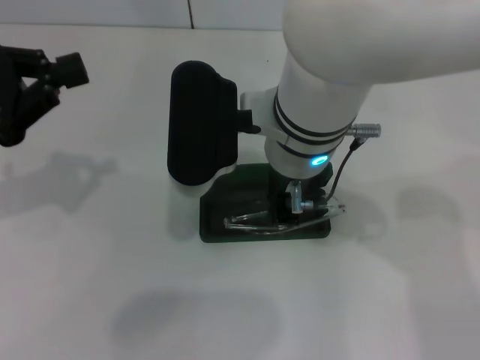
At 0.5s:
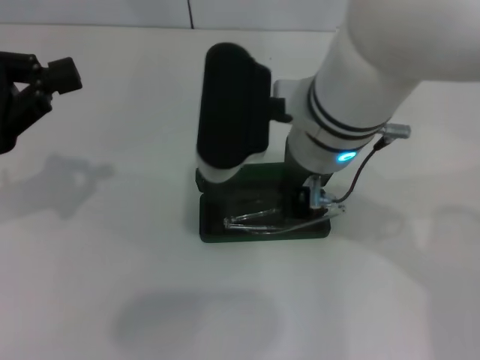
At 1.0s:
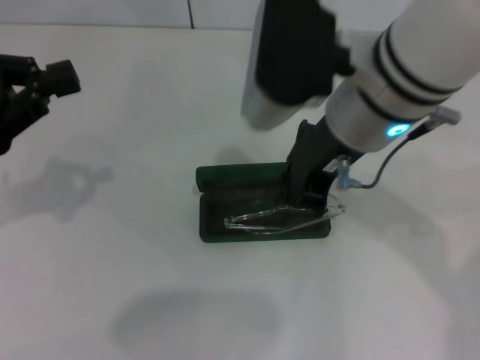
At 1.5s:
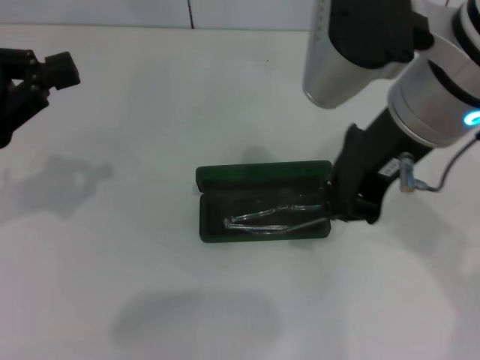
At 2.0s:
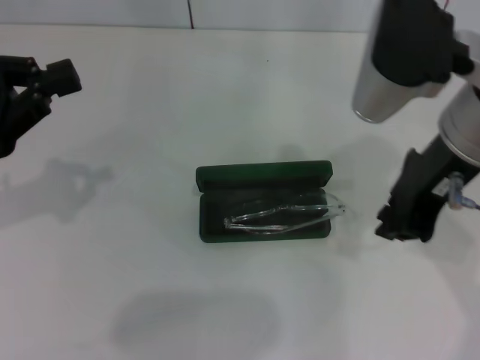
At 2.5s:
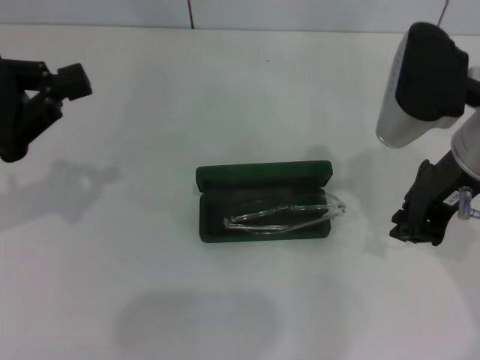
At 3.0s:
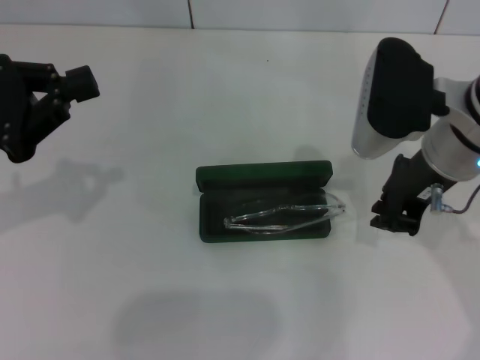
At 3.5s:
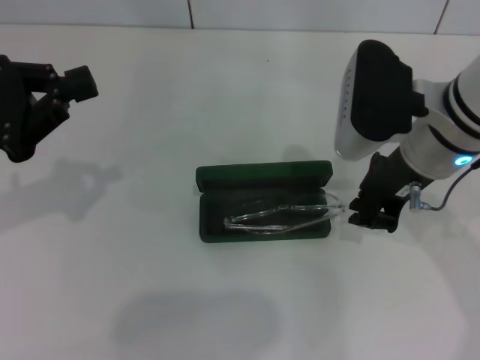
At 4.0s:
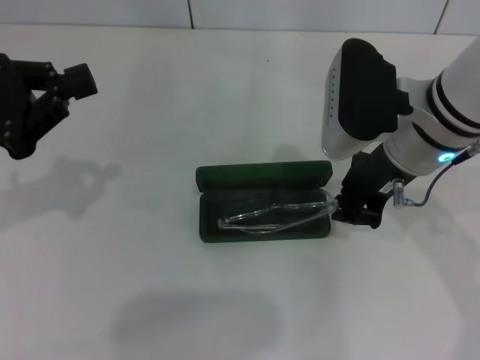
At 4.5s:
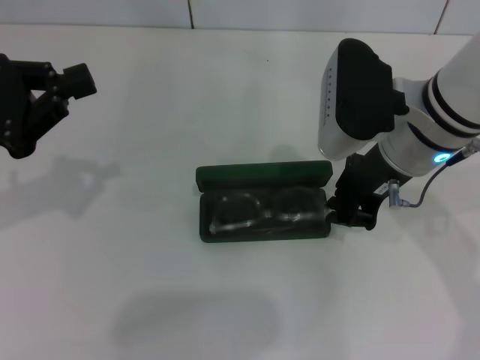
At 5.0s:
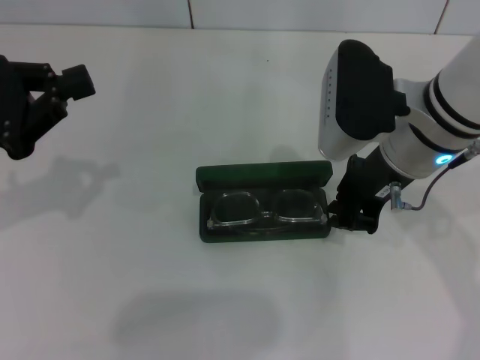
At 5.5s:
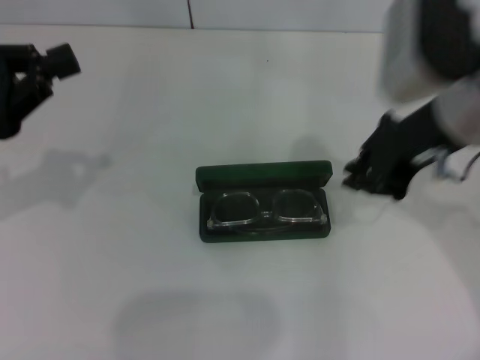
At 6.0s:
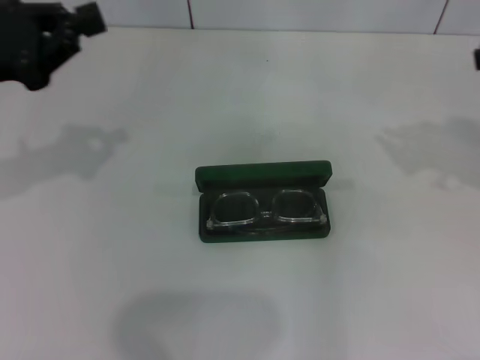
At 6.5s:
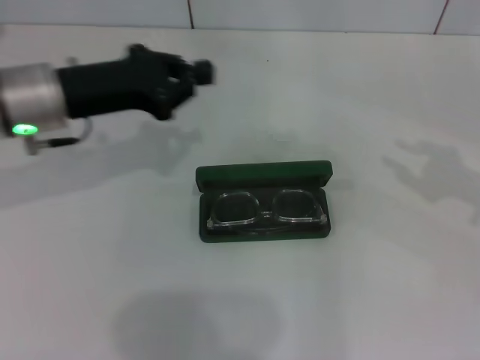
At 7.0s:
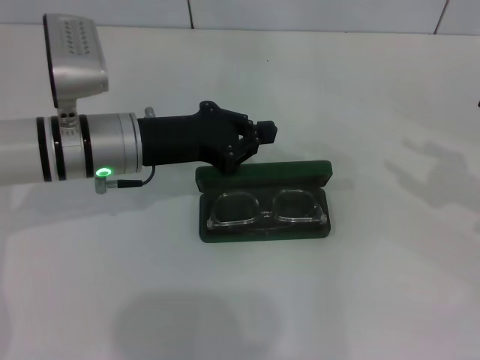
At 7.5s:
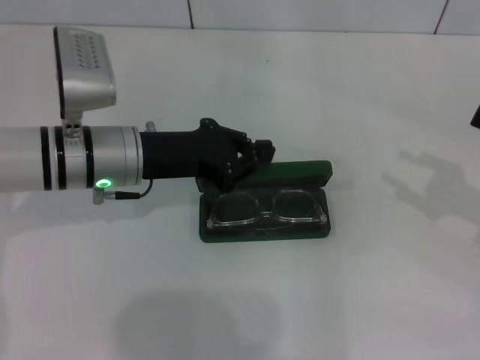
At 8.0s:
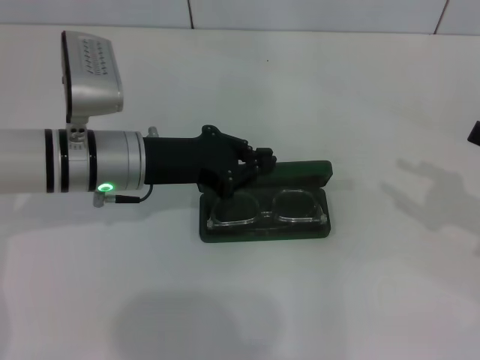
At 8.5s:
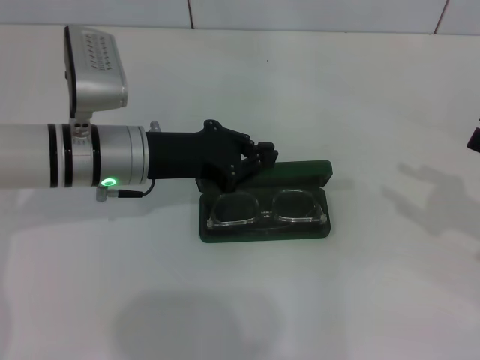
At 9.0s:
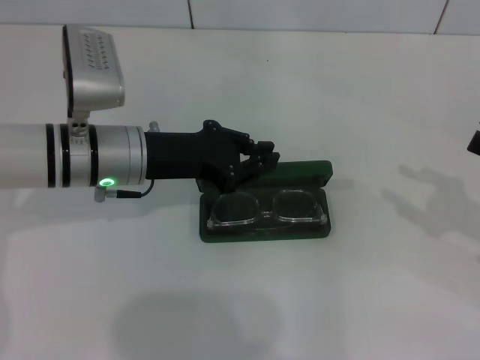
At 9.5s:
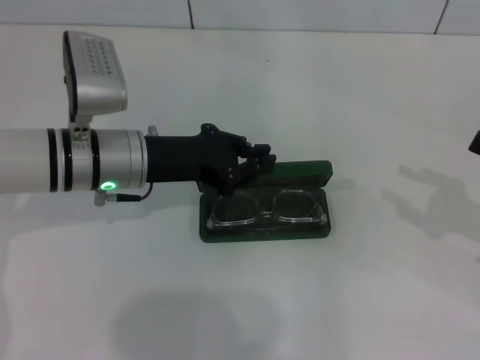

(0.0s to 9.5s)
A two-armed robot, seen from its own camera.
Step, 0.0s - 4.5s: Put the glasses into the case with your right hand.
0.0s - 2.0s: The right gripper moves to the right, approximately 15 cm.
2.0s - 4.0s: The right gripper travels downward by approximately 5 cm.
4.0s - 5.5s: The right gripper goes about 5 cm upward.
5.5s - 7.5s: The grippers both shift to the right and downward by approximately 20 cm. The right gripper opens up.
7.5s - 9.5s: The grippers stay close to where they were, moving slightly.

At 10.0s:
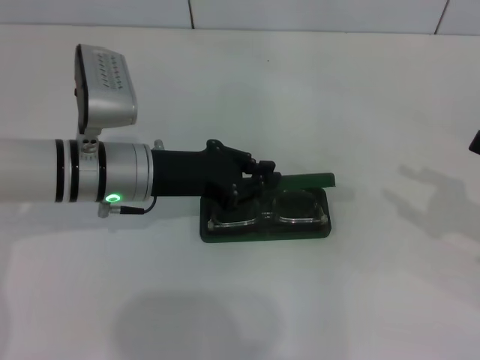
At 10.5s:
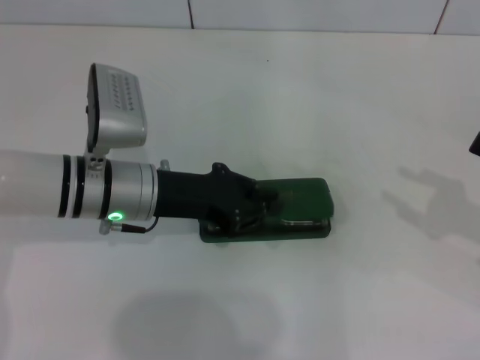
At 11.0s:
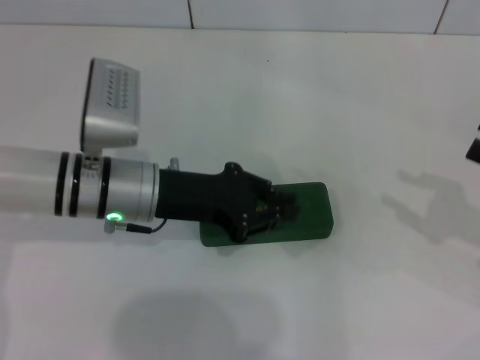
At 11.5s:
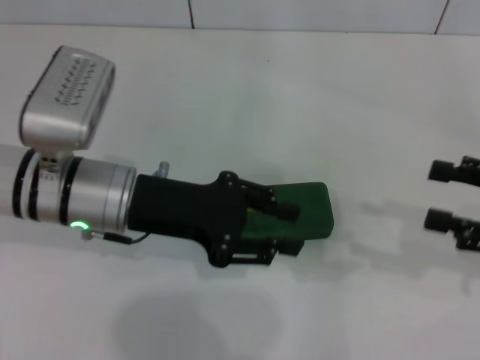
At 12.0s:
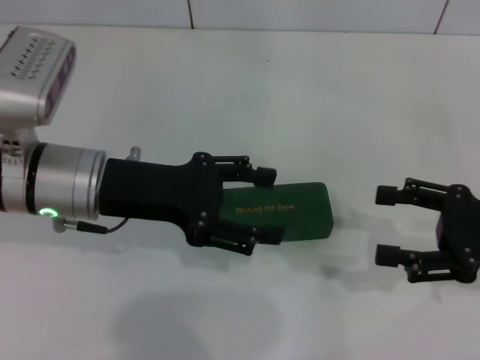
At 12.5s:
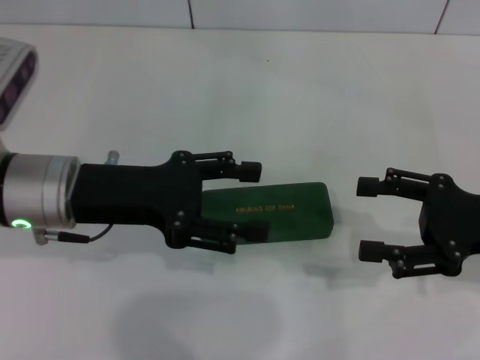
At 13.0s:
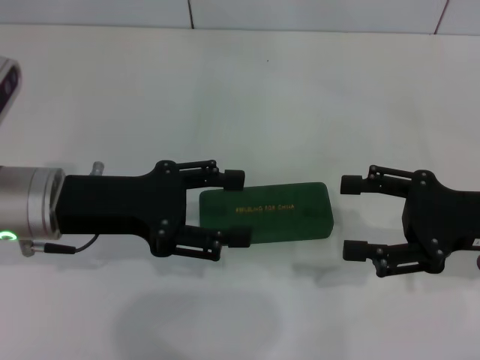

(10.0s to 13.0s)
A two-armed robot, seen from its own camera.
11.5s - 13.0s: The two grippers go approximately 5 cm to the left. The left gripper opens up.

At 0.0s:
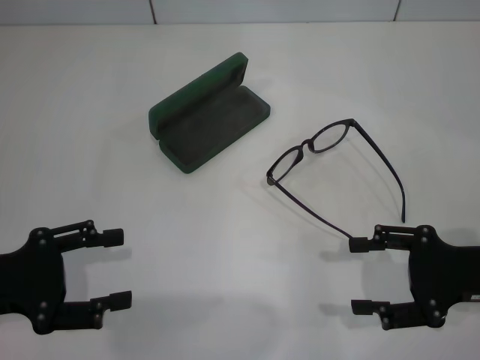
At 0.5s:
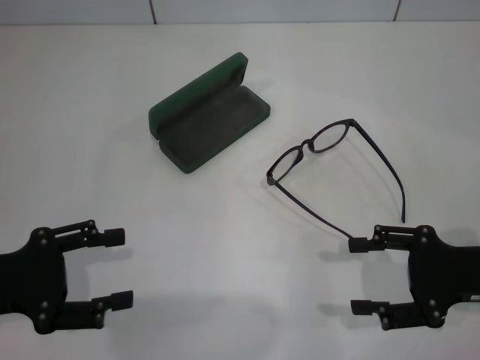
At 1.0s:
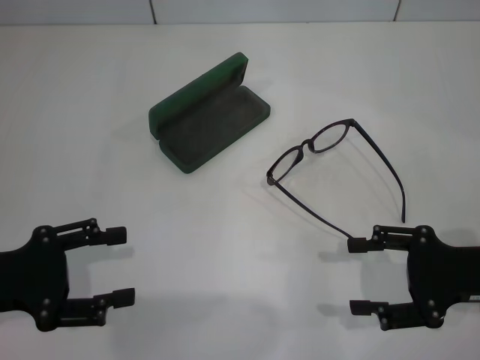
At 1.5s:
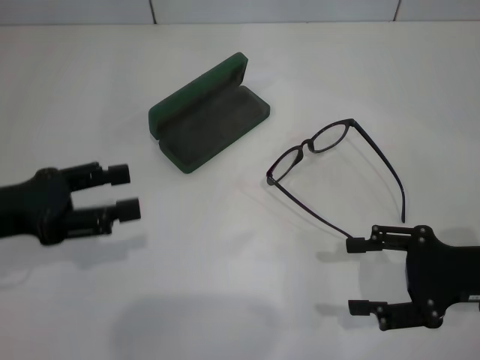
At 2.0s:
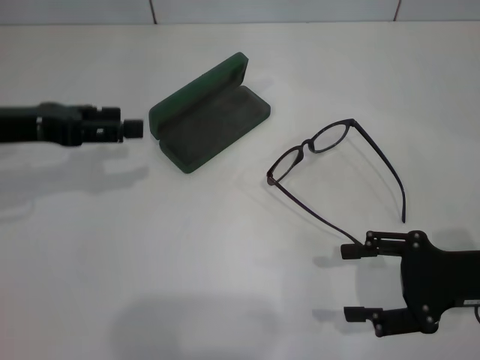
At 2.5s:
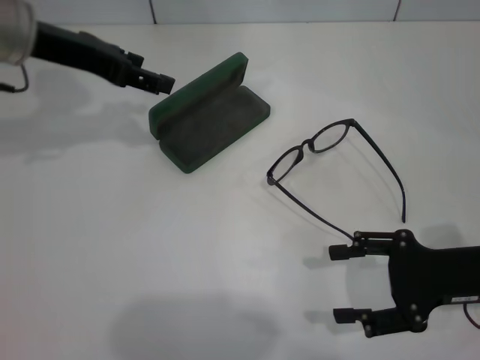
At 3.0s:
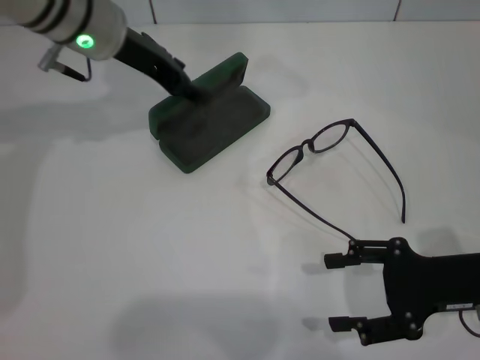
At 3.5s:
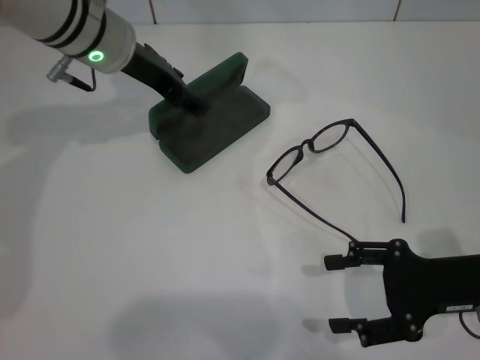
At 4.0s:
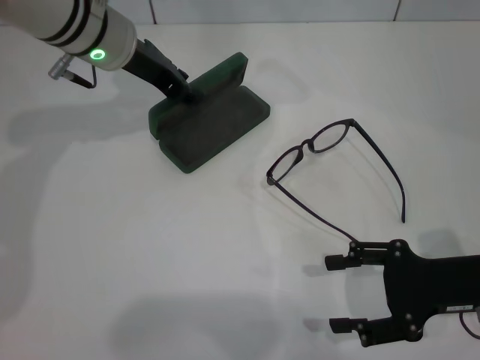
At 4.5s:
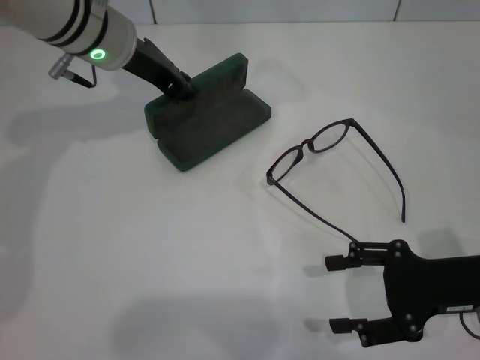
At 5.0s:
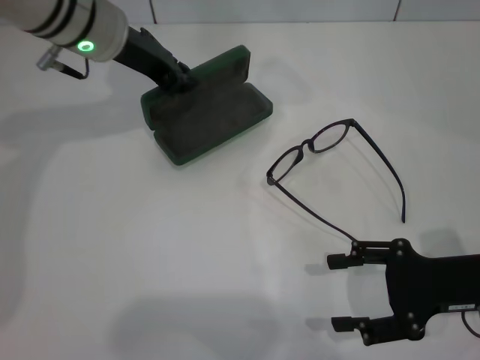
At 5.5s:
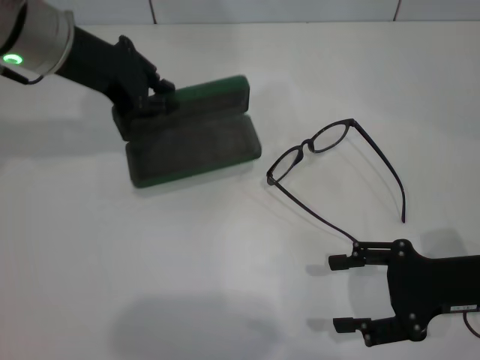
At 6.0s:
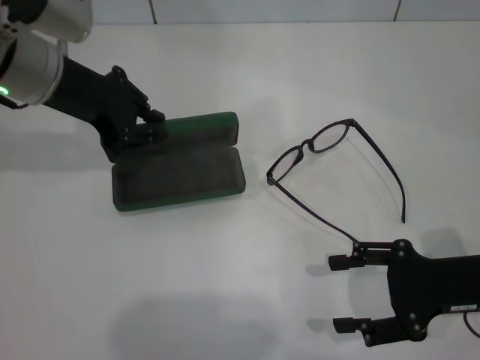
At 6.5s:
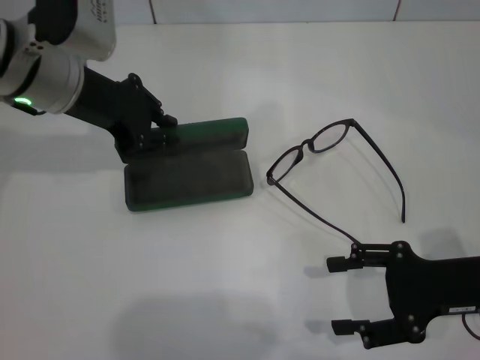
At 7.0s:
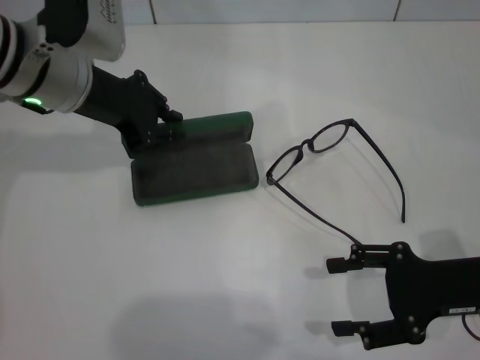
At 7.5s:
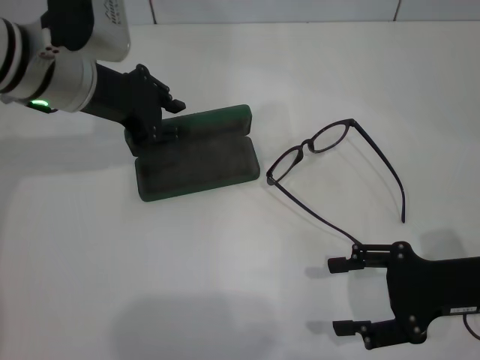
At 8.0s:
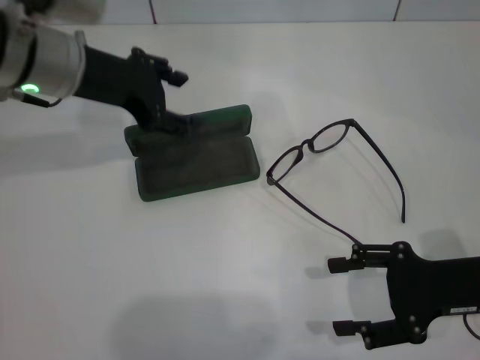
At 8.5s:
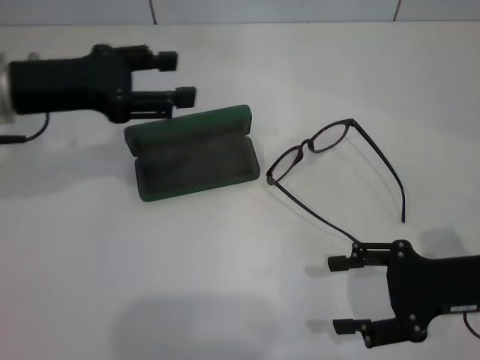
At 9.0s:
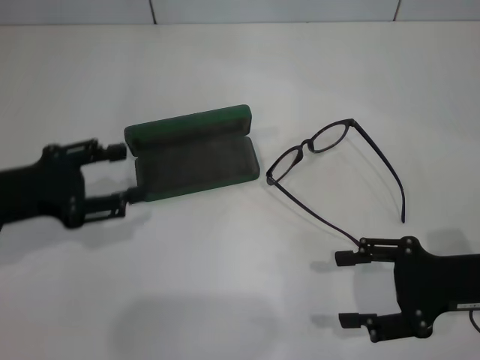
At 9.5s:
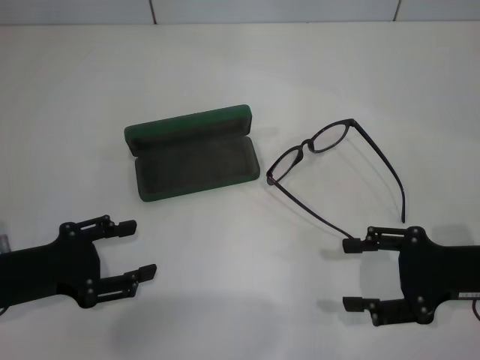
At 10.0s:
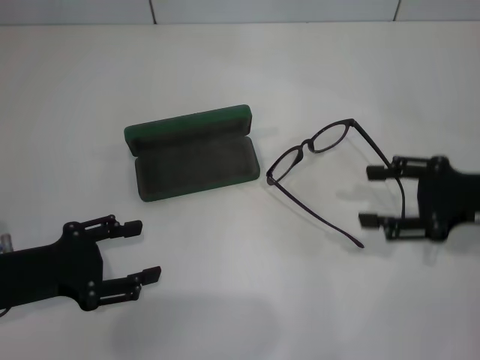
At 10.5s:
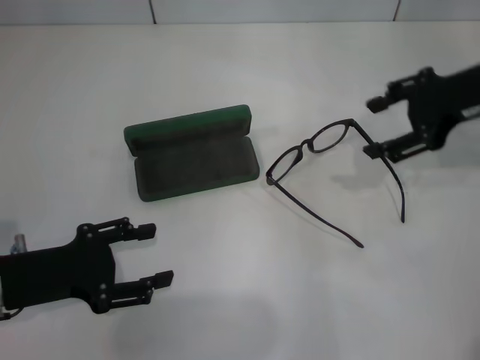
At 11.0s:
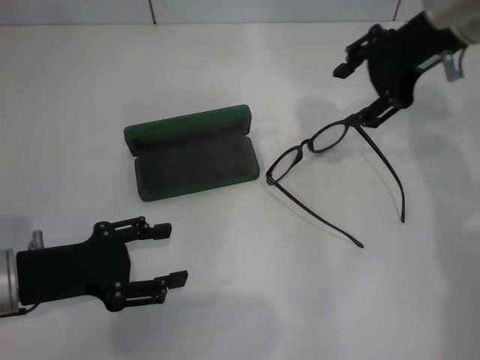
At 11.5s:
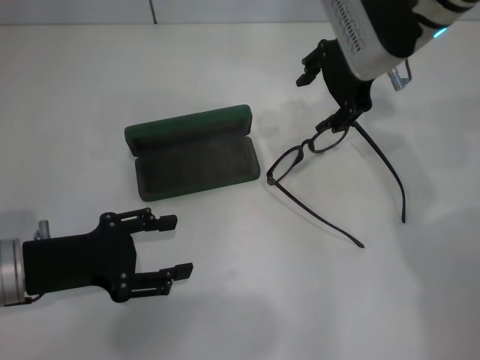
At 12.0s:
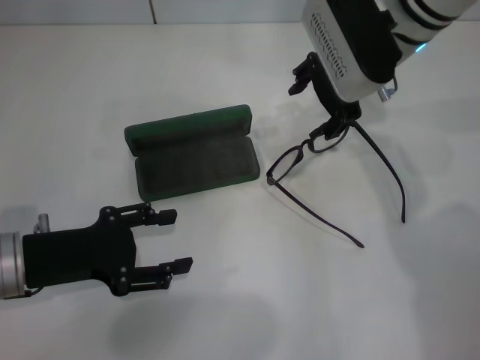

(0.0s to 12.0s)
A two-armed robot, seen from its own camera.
Step, 0.0s - 4.5s: Grab the glasses case with your left hand.
Step, 5.0s - 7.5s: Place the glasses case in the center of the table with your left hand.
0.0s - 2.0s: The left gripper heads forward and upward, covering some 15 cm.
2.0s - 4.0s: The left gripper shifts about 20 cm to the right and forward.
4.0s - 6.0s: The left gripper travels backward and to the left by roughly 10 cm, and closes its fingers.
6.0s - 8.0s: The left gripper opens up.
8.0s - 10.0s: The left gripper is displaced backward, downward and to the left by roughly 20 cm; the right gripper ends up approximately 5 cm from where it was.
10.0s - 12.0s: The right gripper is displaced to the left, forward and upward by approximately 25 cm.

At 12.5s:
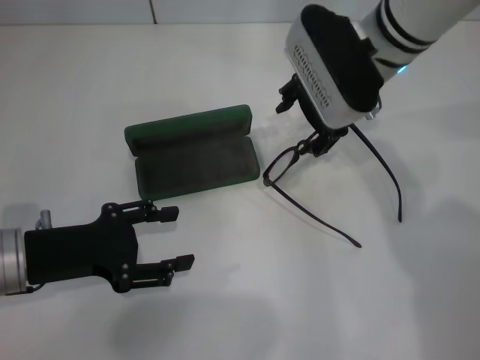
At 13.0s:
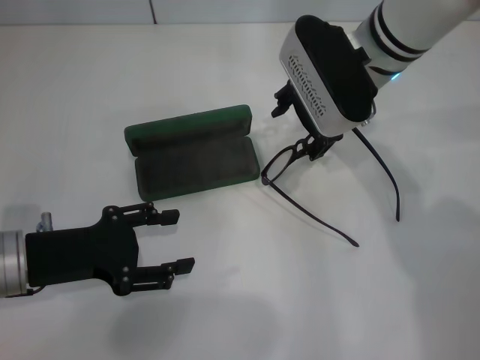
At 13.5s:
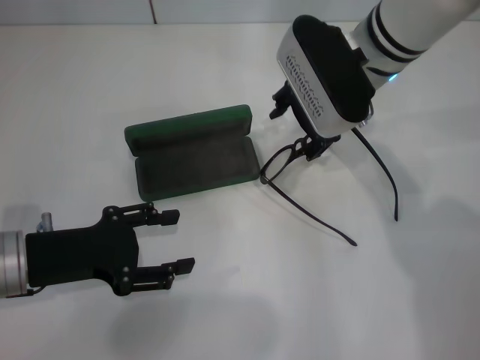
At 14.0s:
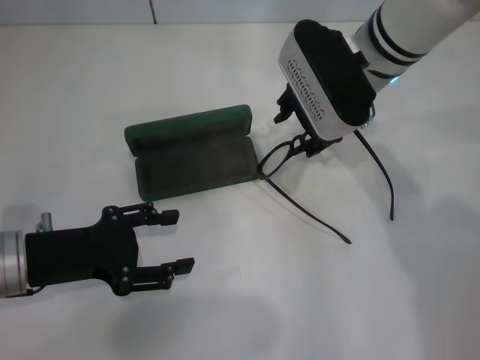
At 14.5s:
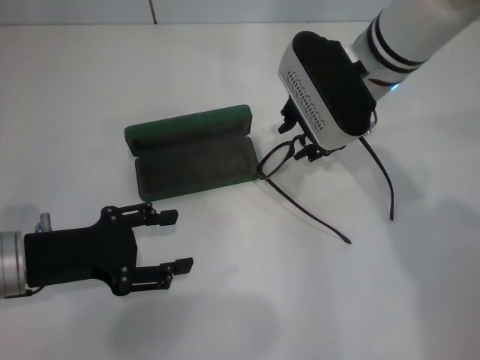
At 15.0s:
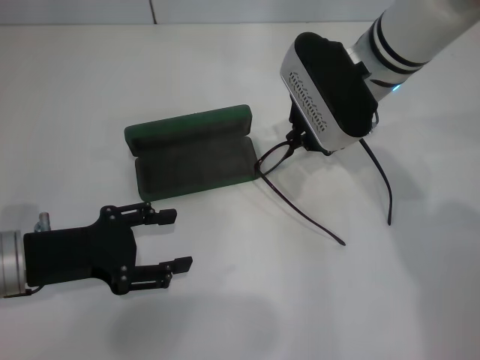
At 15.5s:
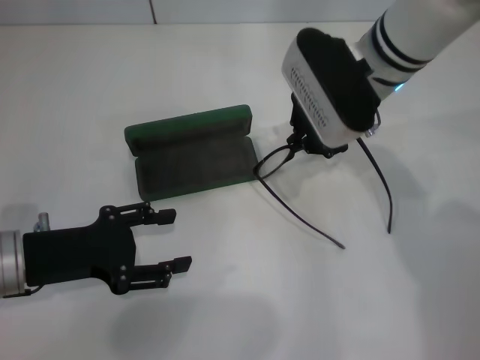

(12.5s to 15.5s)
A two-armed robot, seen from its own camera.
Step, 12.5s - 15.0s: Grab the eyeglass frame with your right hand.
12.5s - 14.0s: The two grippers keep their place.
14.0s - 15.5s: The right gripper closes its fingers.
